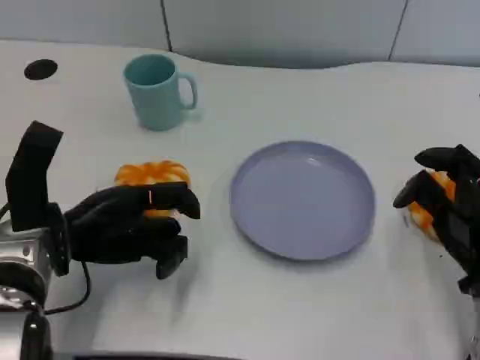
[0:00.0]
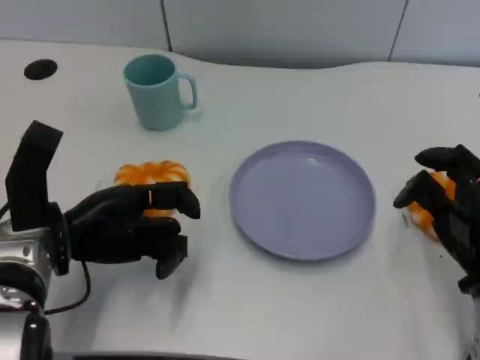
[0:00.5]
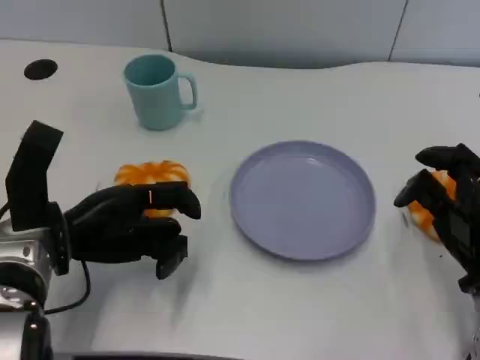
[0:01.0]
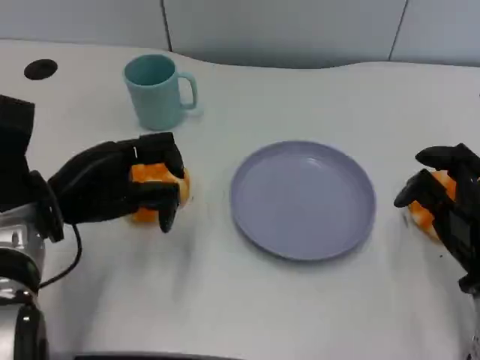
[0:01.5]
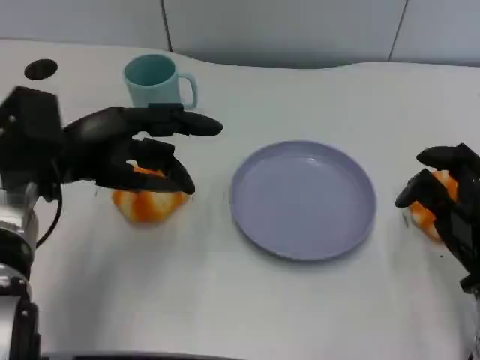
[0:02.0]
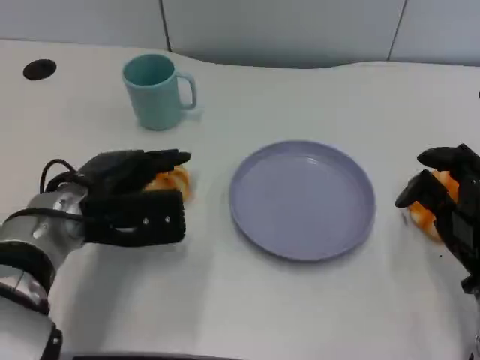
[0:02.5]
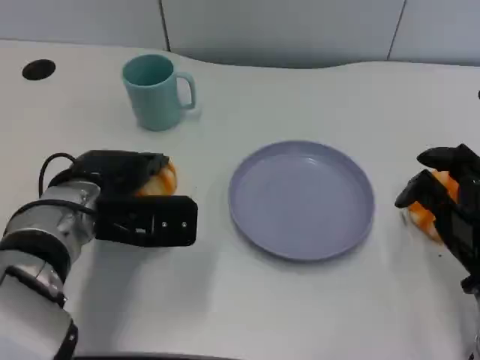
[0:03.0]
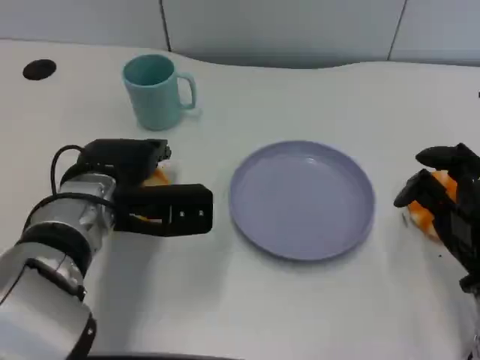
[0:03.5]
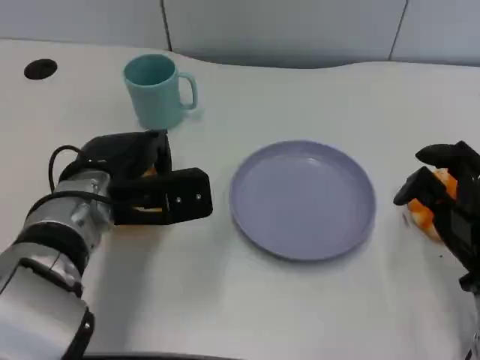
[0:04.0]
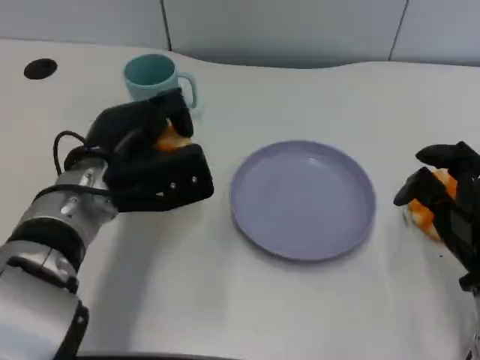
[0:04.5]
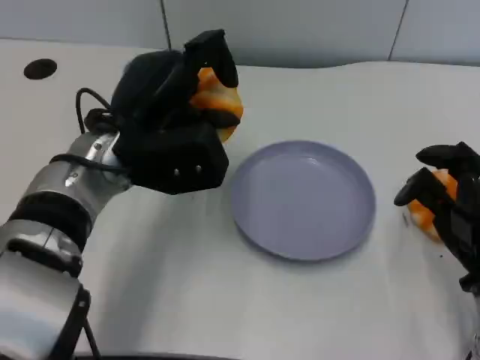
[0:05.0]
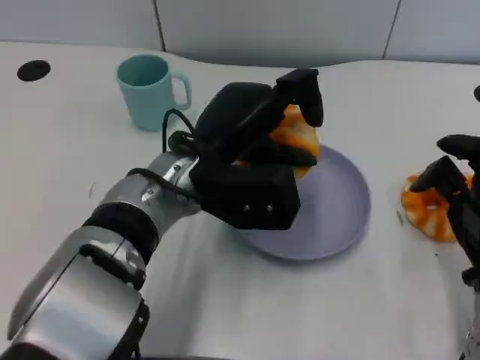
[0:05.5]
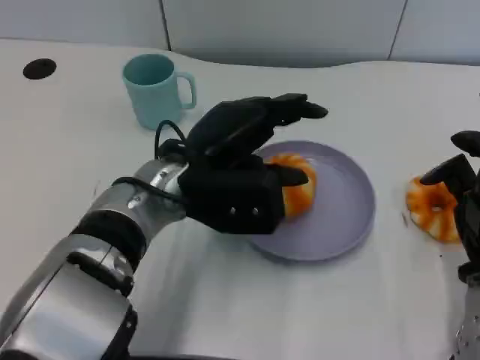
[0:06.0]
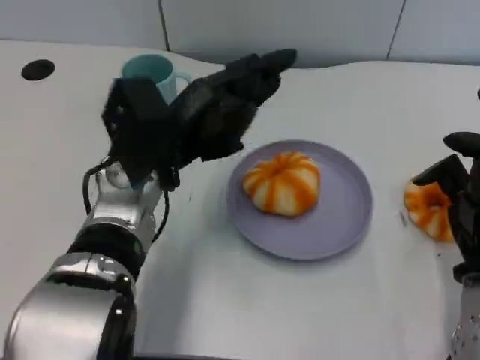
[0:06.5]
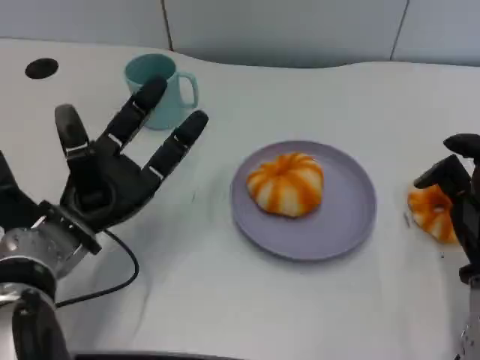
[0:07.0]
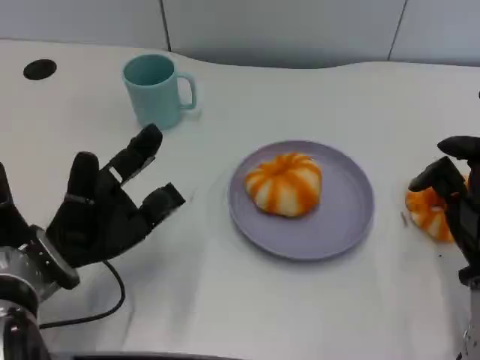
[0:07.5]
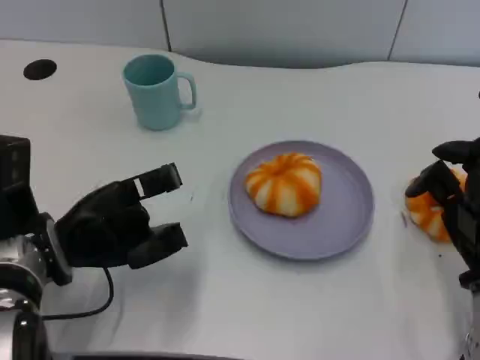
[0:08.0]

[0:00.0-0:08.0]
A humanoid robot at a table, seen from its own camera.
Task of the whole recording: Grasp the bread from the table and place it into the plate.
0:00.0 to 0:02.0: The left hand goes some 5 cm upward.
0:02.0 to 0:04.0: The left hand heads to the right, covering approximately 5 cm.
0:04.0 to 0:06.0: The left hand heads to the right, covering about 10 cm.
0:06.0 to 0:08.0: The left hand shifts about 15 cm to the left and downward.

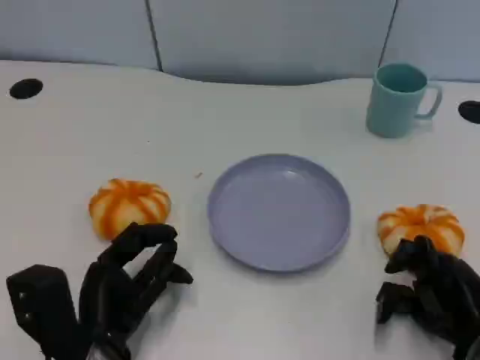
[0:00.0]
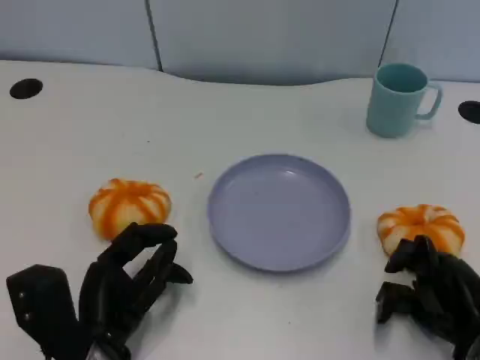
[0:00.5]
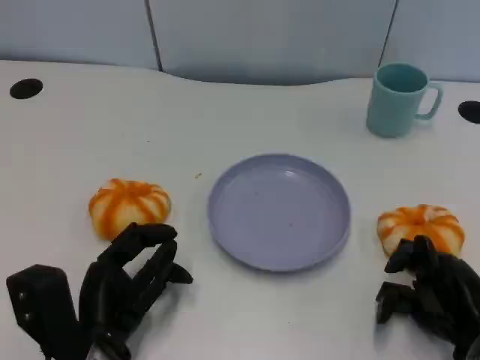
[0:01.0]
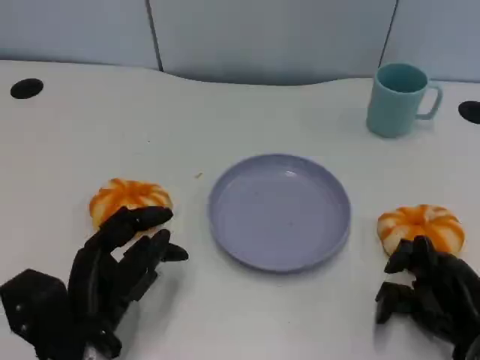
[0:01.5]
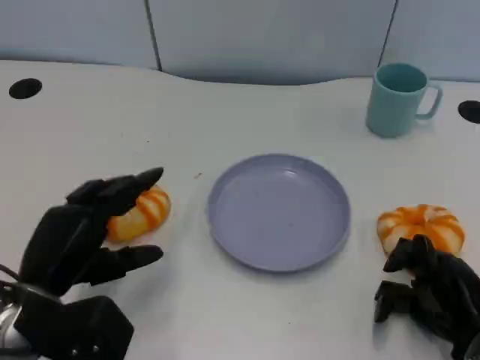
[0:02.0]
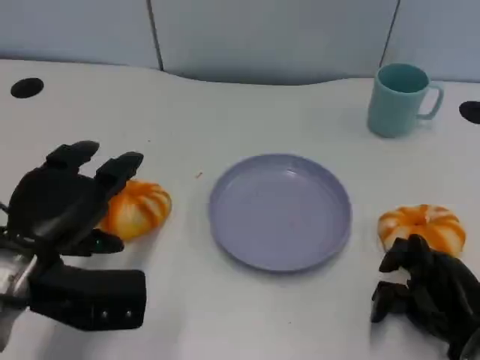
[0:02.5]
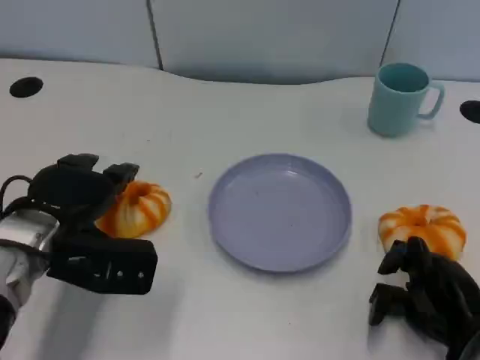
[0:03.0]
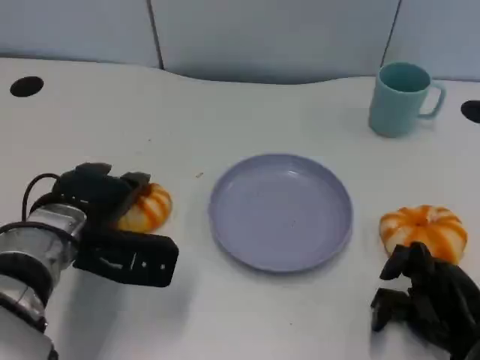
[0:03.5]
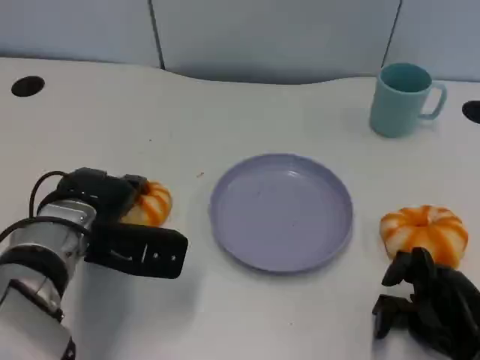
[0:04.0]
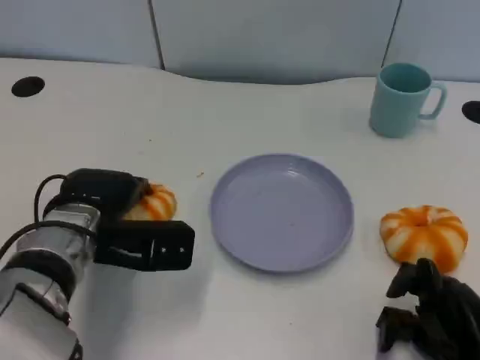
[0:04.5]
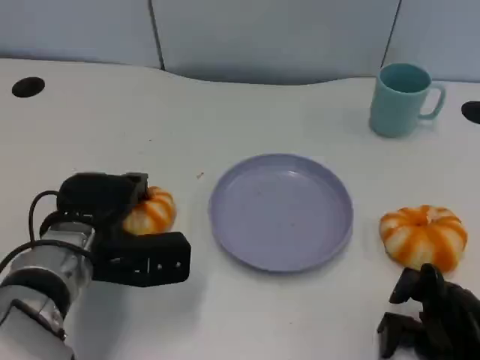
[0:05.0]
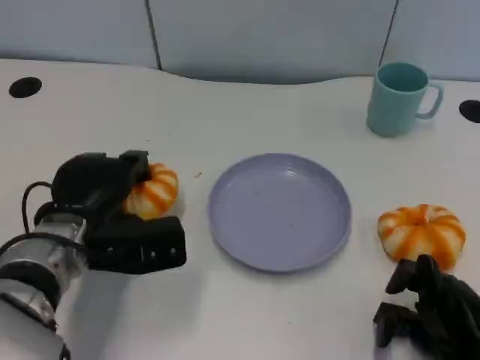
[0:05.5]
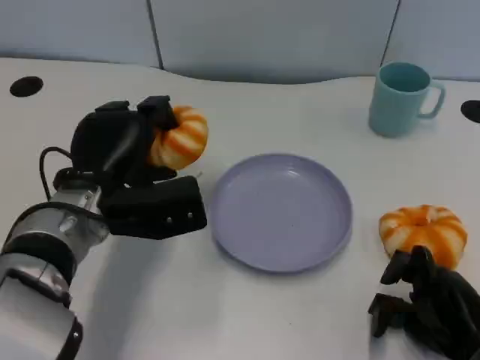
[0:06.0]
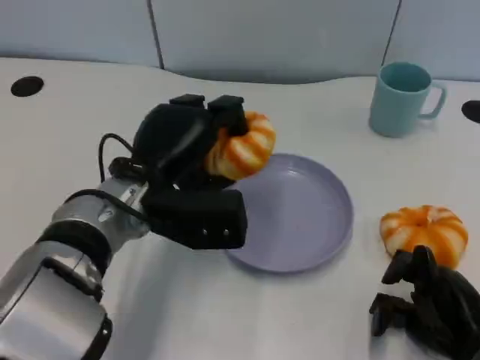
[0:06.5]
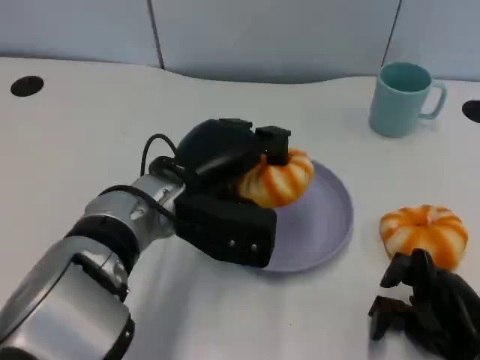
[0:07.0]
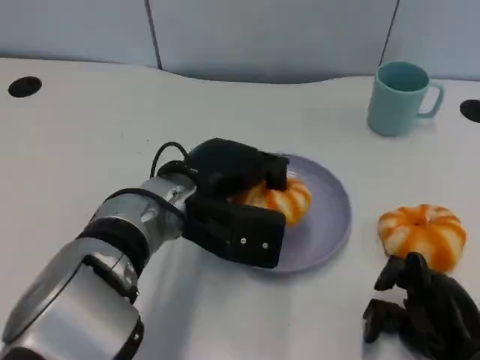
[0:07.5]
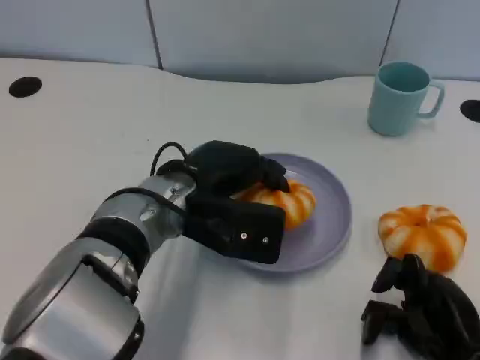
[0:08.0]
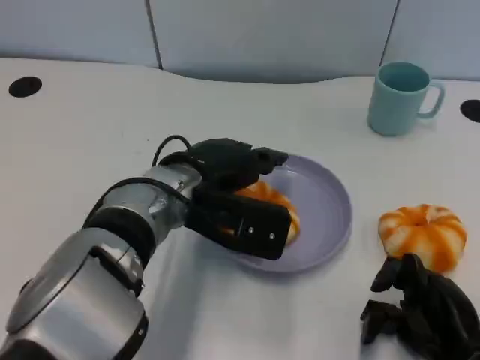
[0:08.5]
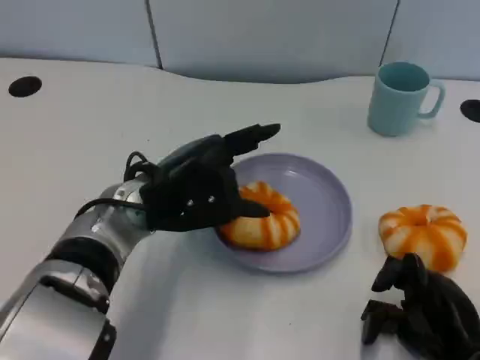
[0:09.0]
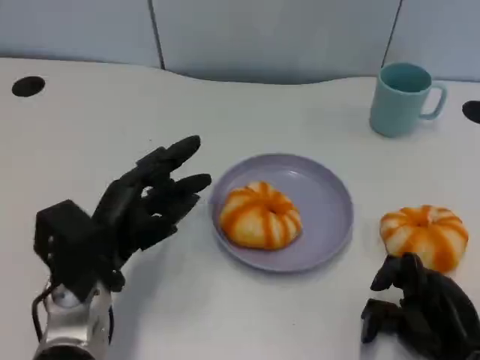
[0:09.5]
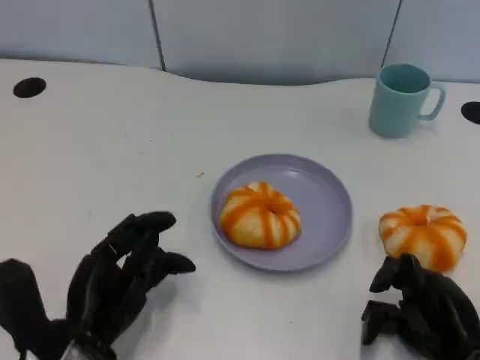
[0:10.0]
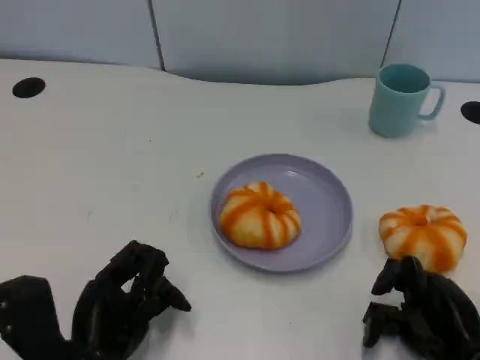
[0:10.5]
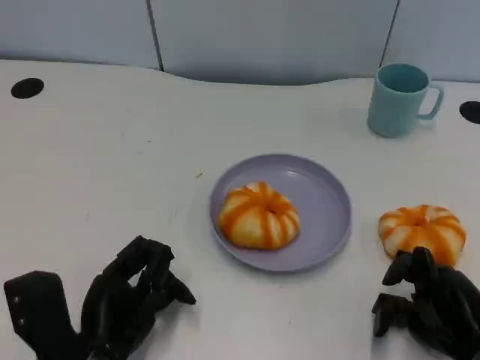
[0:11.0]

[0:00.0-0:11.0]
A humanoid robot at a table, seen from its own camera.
Task of the whole recording: Grasp the bread from the table and place it into the plate.
0:00.0 to 0:02.0: The left hand goes some 10 cm upward and to the left.
0:02.0 to 0:03.5: The left hand moves forward, about 10 cm.
0:05.5 to 0:07.5: The left hand shifts some 10 cm to the right.
0:09.0 to 0:11.0: The left hand moves backward, downward and to the left, some 15 cm.
